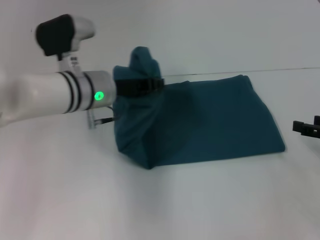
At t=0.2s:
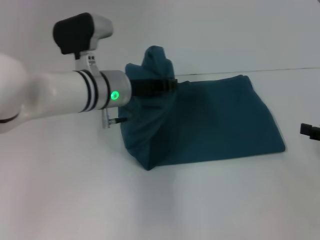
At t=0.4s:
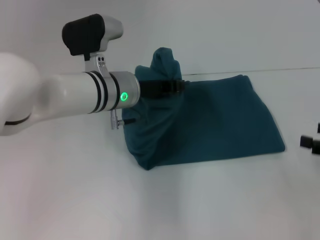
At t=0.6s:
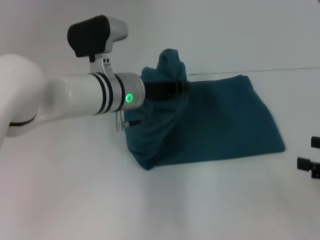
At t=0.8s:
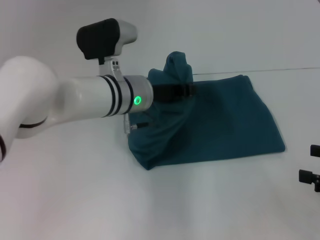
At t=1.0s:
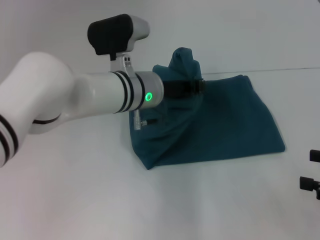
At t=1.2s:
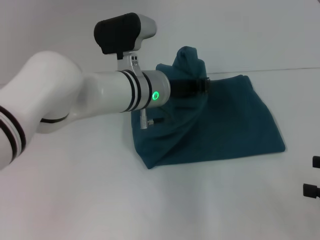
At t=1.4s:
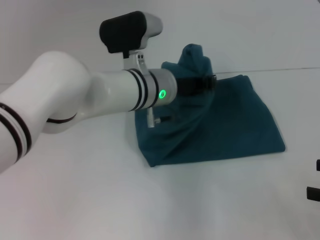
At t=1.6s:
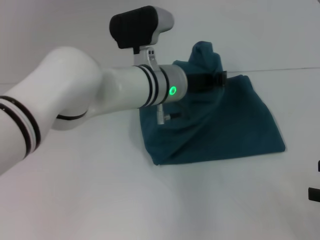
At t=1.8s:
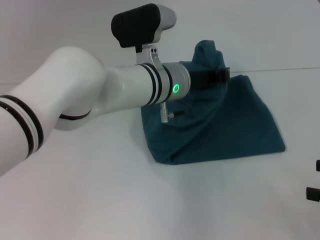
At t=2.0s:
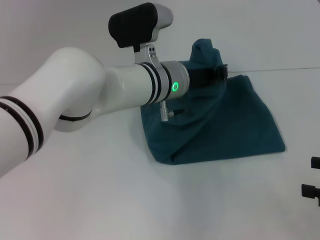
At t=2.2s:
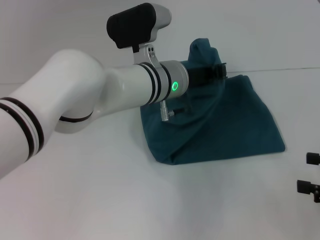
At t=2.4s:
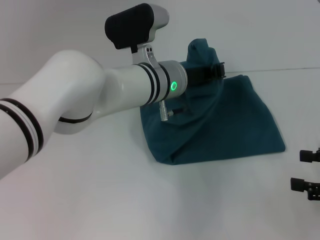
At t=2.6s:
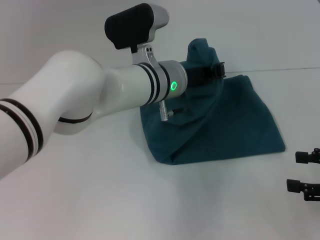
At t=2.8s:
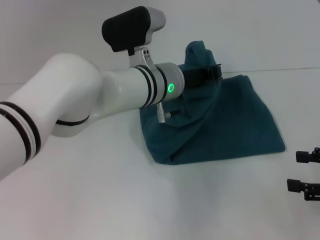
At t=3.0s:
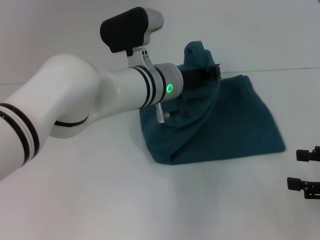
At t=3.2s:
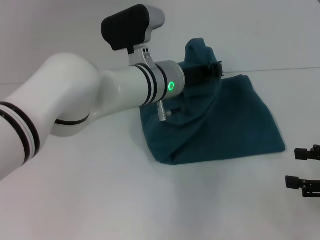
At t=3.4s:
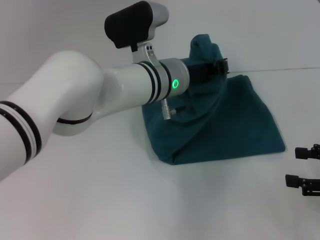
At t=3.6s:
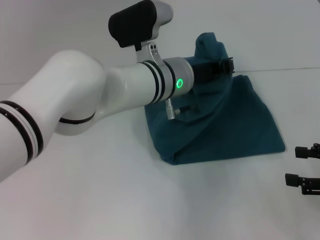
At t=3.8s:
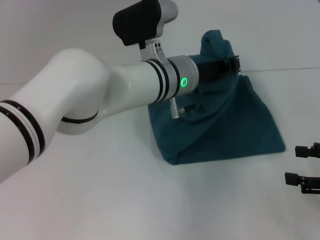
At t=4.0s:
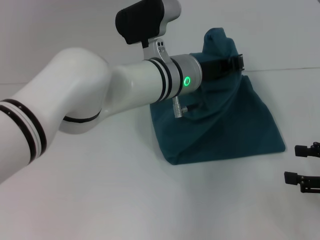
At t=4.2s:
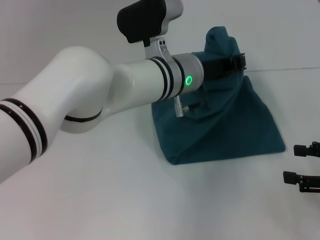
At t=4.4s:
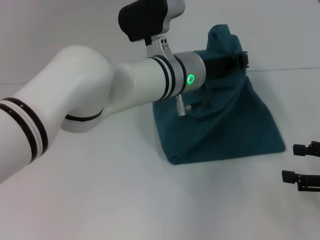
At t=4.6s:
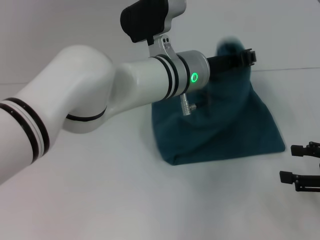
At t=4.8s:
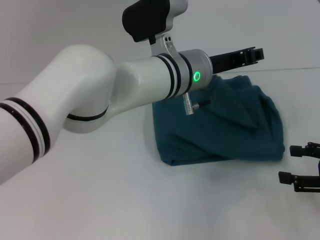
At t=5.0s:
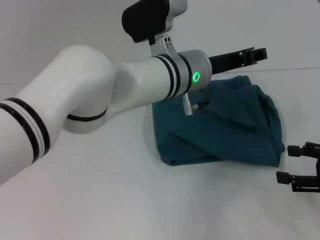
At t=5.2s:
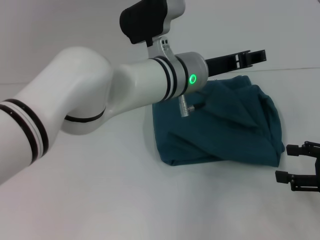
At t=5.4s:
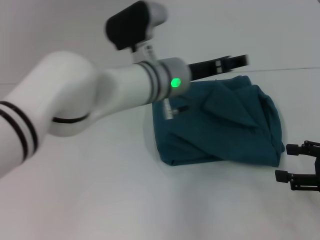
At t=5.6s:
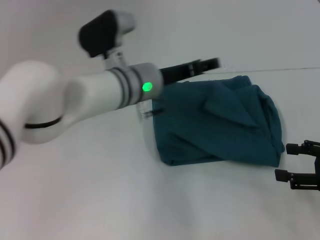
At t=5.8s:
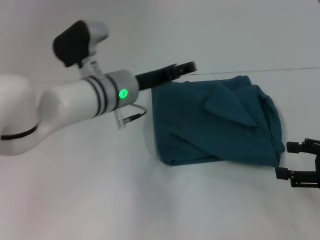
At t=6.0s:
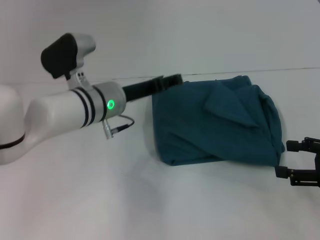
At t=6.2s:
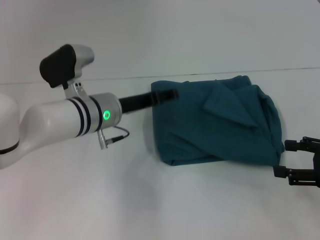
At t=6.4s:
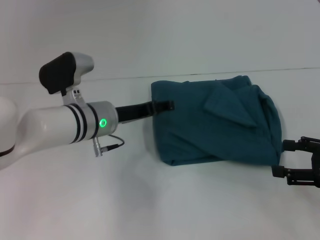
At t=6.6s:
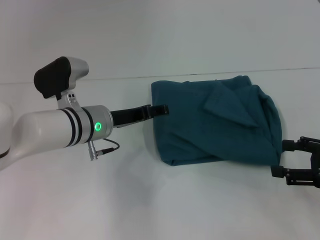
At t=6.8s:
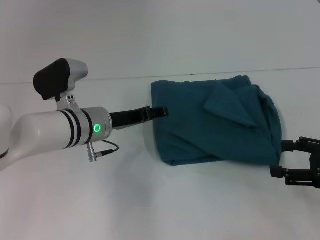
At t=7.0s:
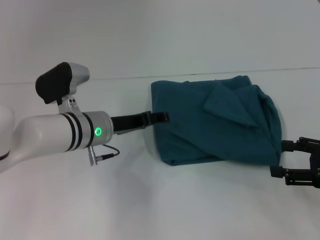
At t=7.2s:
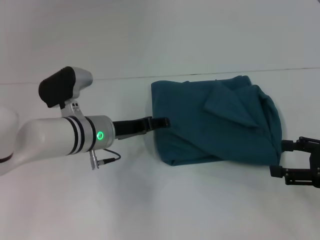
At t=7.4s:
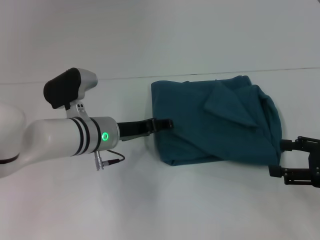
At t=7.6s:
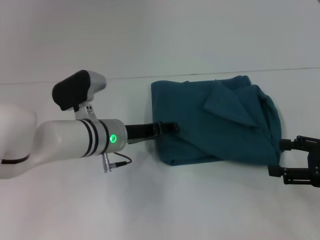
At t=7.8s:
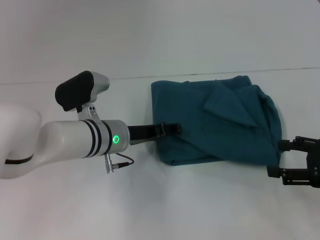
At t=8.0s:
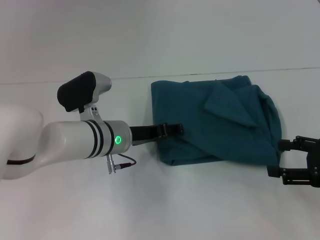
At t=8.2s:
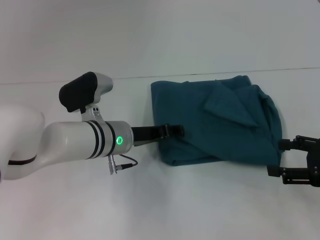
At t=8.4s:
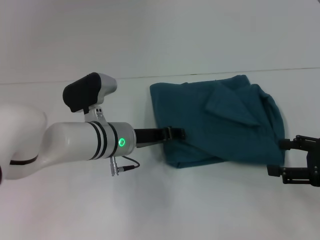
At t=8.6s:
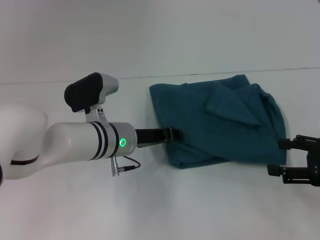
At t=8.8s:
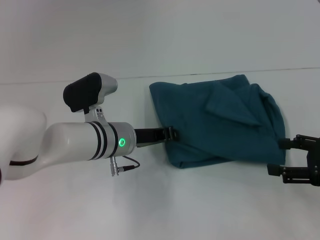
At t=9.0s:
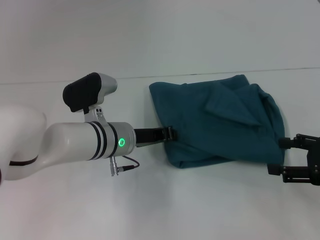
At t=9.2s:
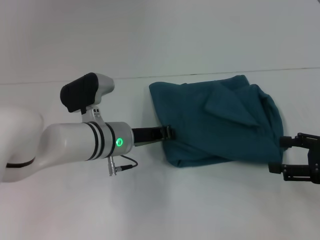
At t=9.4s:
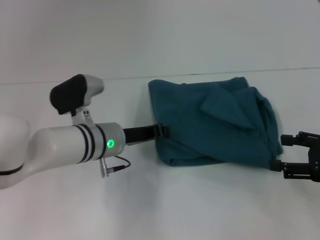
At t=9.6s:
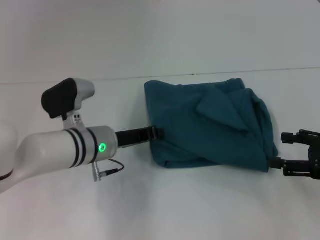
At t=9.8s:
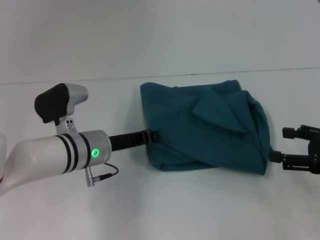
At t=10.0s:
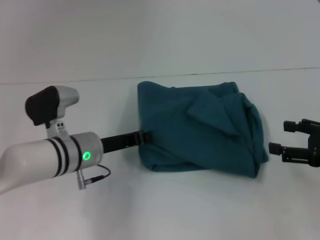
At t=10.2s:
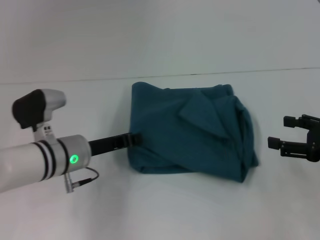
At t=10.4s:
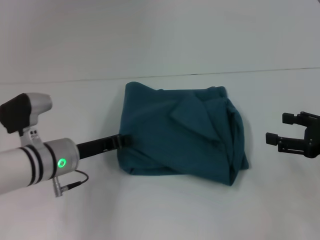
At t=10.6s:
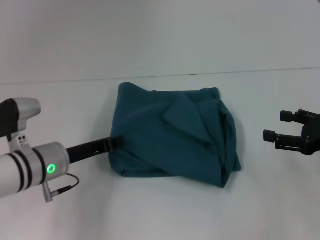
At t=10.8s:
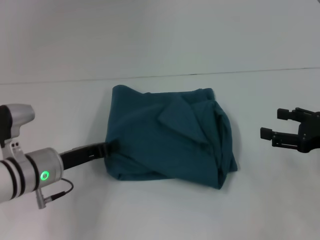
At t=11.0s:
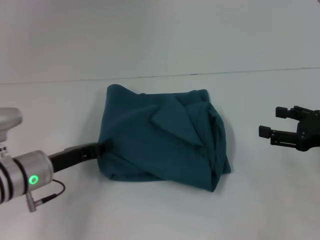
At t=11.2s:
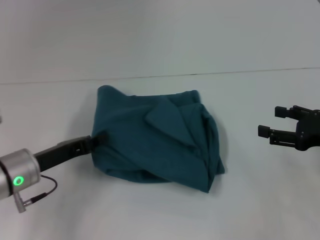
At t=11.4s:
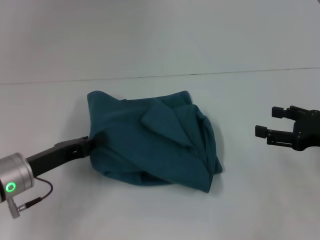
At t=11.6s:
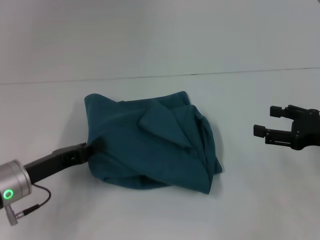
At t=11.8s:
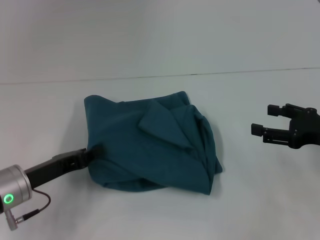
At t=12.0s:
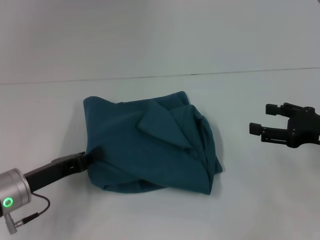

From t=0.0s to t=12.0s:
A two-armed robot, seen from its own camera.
Step, from t=0.0s to t=4.8s: Fold the clothes to the left.
From t=0.0s to t=1.6s: The right gripper heads backward, covering approximately 10 cm, while the left gripper travels to the right by roughly 10 cm.
From t=1.6s to t=4.4s: The grippers stay close to where they were, moving slightly.
From t=4.4s to t=6.0s: The left gripper is displaced to the left and downward by about 15 cm, and opens.
From t=6.0s to t=7.6s: The grippers stay close to where they were, moving slightly.
From t=7.6s to t=9.0s: The left gripper closes.
From t=9.0s to t=10.4s: The left gripper travels to the left by approximately 10 cm.
From t=10.4s to t=12.0s: The left gripper heads to the left and backward, covering about 10 cm.

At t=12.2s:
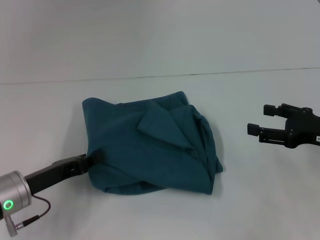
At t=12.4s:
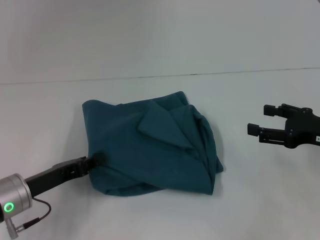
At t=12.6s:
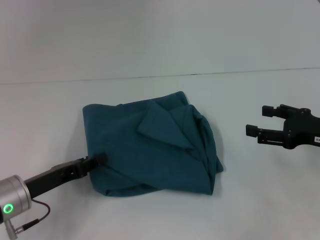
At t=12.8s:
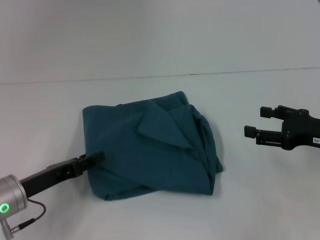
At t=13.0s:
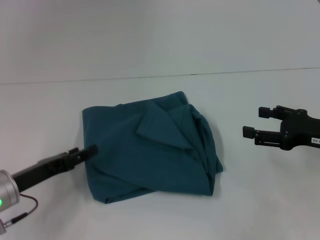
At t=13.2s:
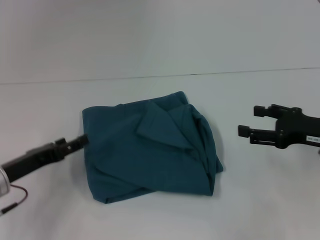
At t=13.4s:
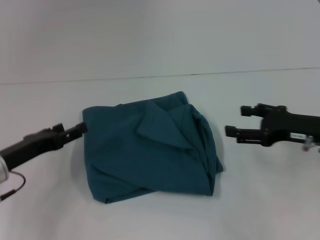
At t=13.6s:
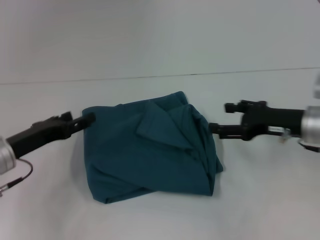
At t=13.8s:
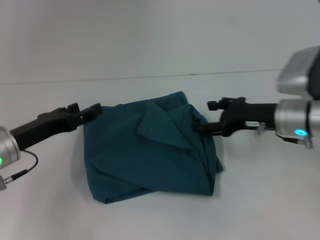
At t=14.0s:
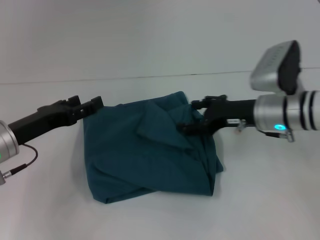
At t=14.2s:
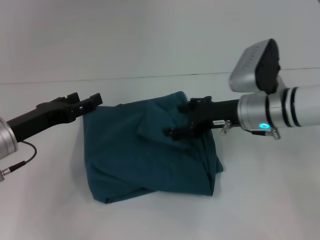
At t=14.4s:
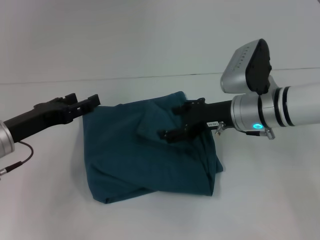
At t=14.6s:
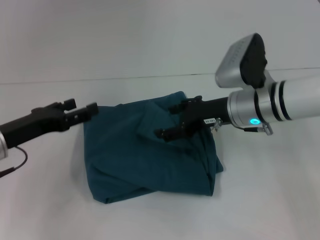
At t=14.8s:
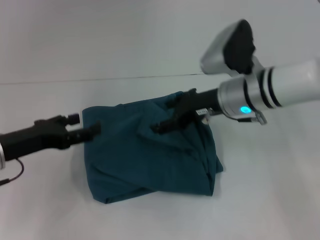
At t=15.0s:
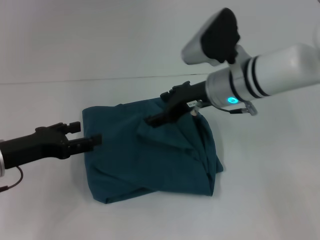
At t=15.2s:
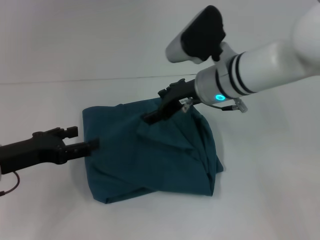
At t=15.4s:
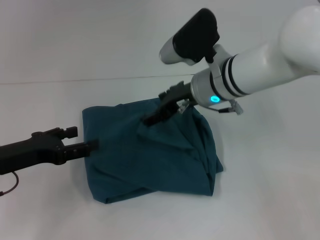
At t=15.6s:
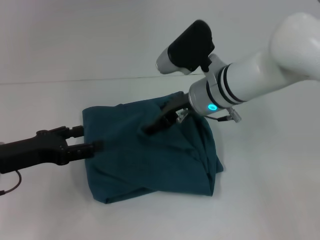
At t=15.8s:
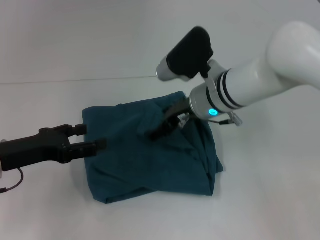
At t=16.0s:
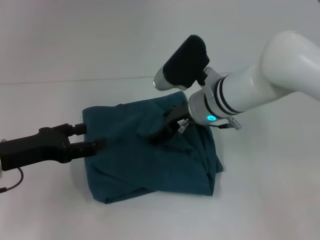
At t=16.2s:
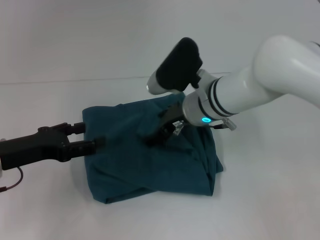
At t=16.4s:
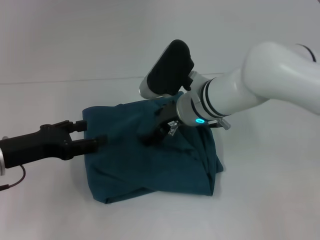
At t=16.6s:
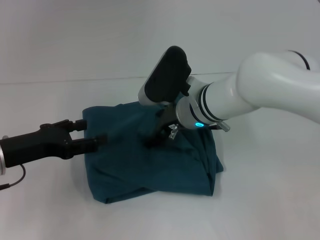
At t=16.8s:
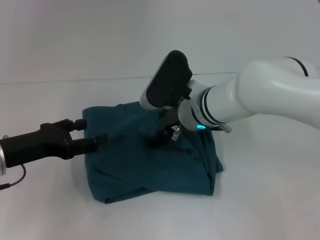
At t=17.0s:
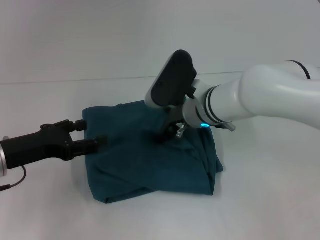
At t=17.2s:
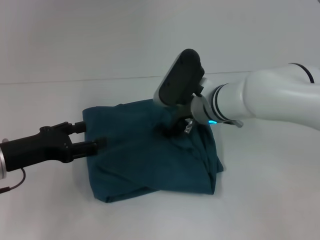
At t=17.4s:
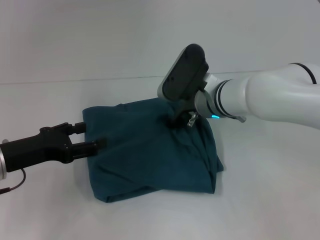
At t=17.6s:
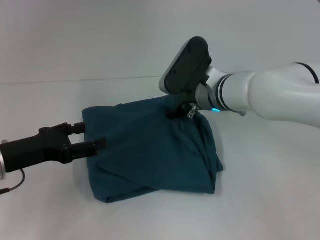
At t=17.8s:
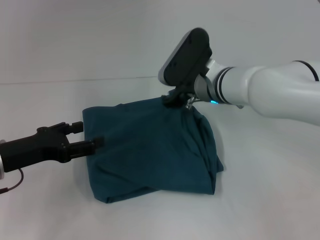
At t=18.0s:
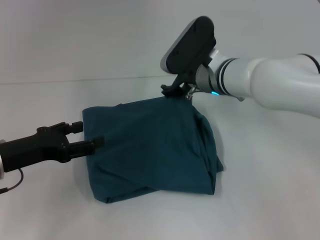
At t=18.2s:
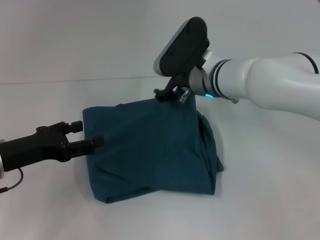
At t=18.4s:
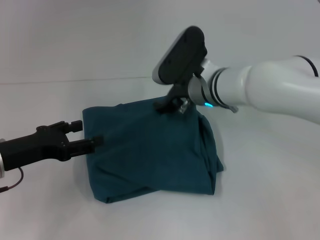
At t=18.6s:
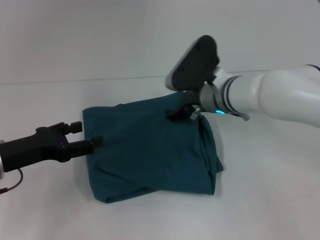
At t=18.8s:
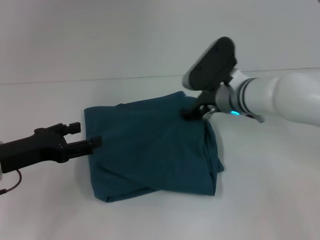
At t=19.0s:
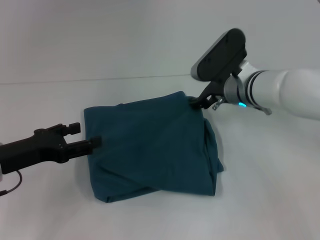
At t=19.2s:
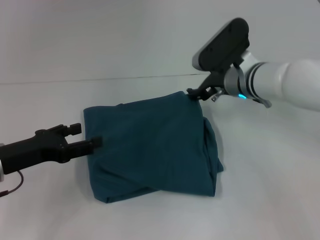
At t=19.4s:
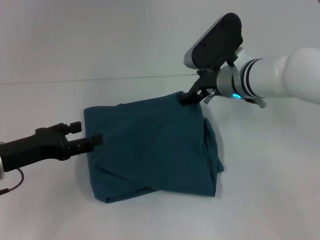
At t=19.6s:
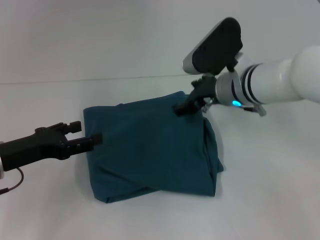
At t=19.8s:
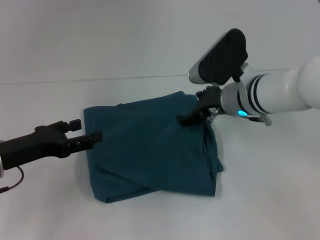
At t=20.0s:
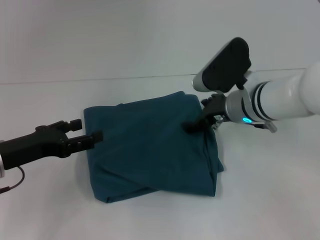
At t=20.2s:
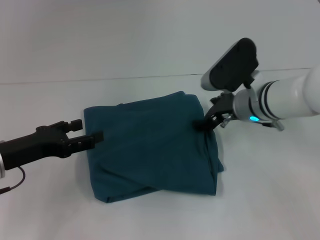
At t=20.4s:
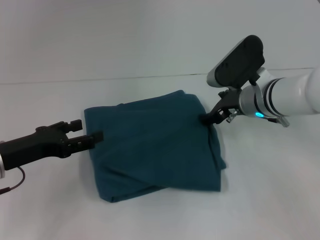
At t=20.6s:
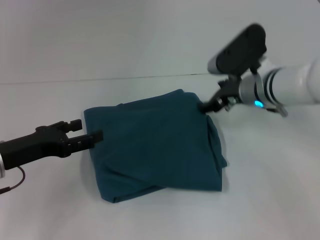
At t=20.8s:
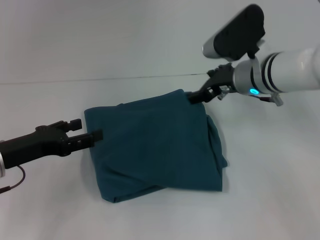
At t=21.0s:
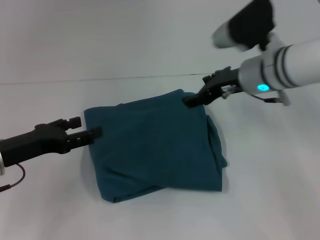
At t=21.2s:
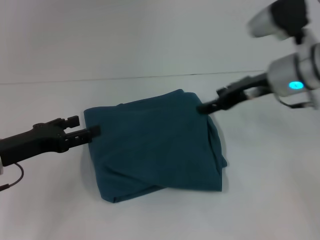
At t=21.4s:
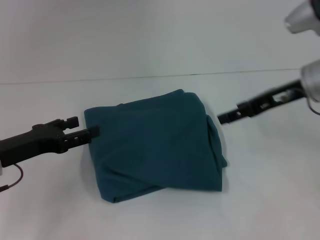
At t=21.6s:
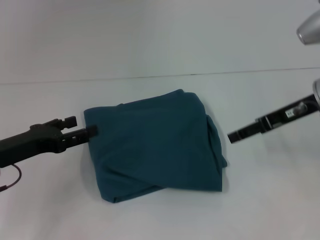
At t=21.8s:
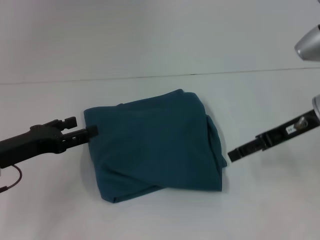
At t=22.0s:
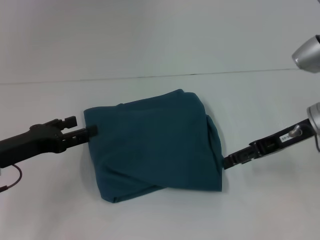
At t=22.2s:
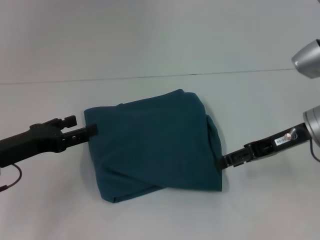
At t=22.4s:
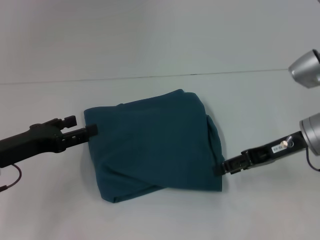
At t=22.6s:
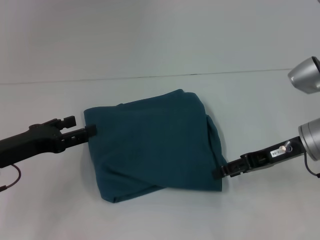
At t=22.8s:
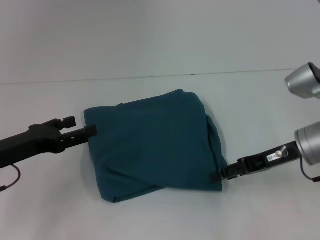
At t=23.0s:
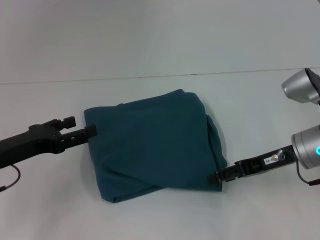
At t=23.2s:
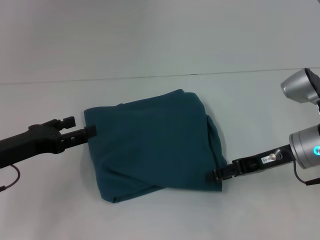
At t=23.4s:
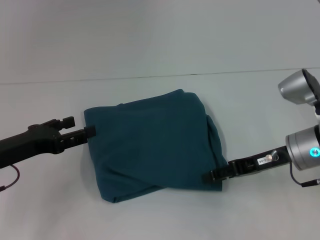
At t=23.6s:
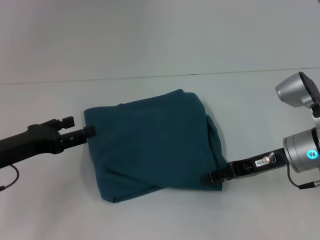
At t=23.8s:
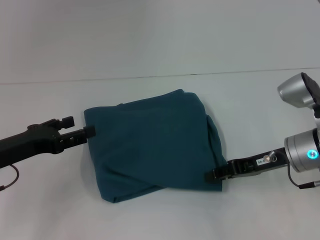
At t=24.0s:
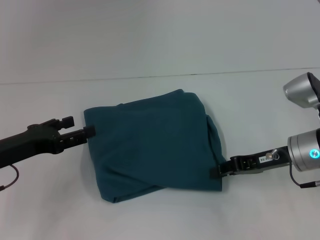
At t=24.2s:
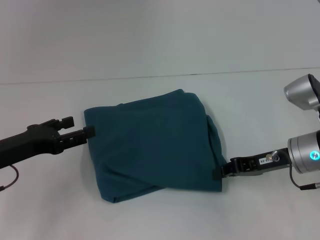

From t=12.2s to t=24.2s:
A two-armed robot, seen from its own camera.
From t=12.2s to t=13.8s: The right gripper travels to the left and forward by roughly 10 cm; the left gripper ends up roughly 5 cm from where it was, and opens its fingers.
From t=13.8s to t=15.2s: The right gripper is displaced to the left and upward by about 15 cm.
From t=15.2s to t=16.6s: The right gripper ends up approximately 5 cm from where it was.
From t=18.2s to t=19.8s: The right gripper ends up about 5 cm from where it was.
From t=19.8s to t=21.2s: The right gripper shifts some 10 cm to the right and upward.
From t=21.2s to t=22.6s: The right gripper is displaced downward and backward by some 10 cm.
From t=22.6s to t=24.2s: The right gripper closes.
